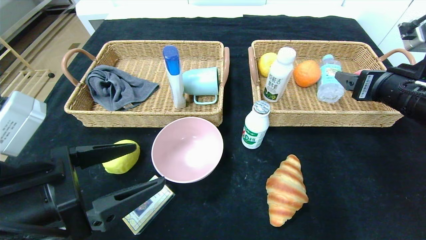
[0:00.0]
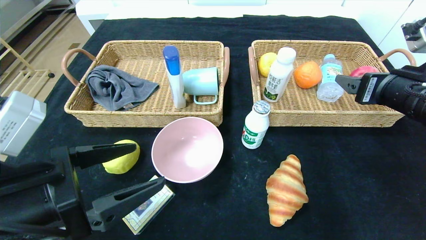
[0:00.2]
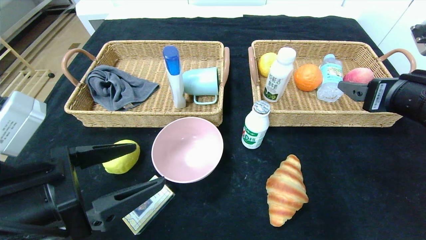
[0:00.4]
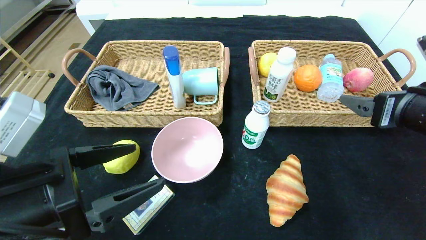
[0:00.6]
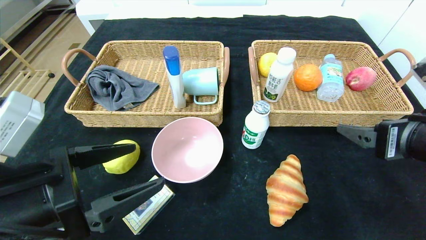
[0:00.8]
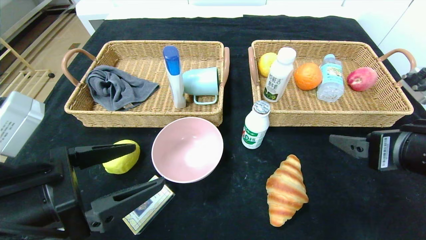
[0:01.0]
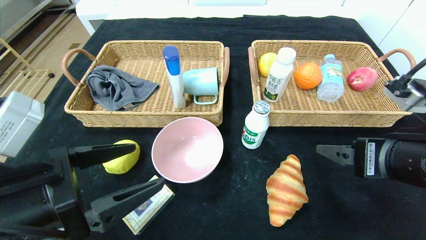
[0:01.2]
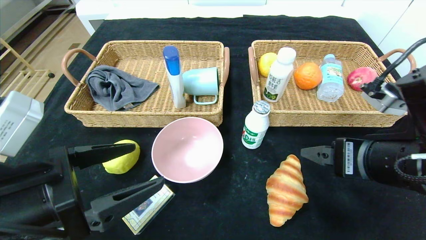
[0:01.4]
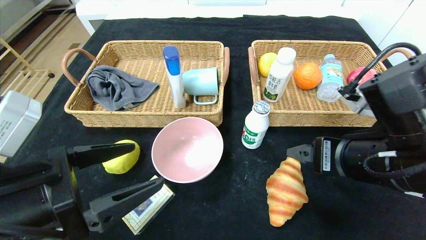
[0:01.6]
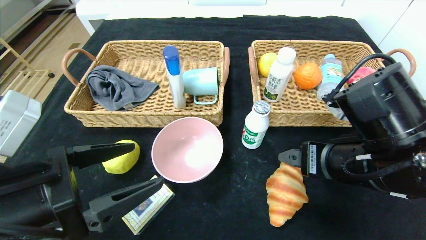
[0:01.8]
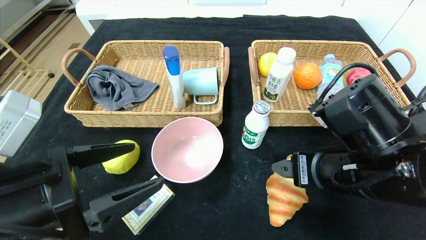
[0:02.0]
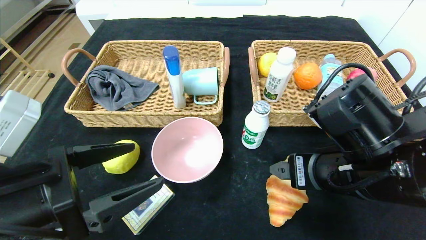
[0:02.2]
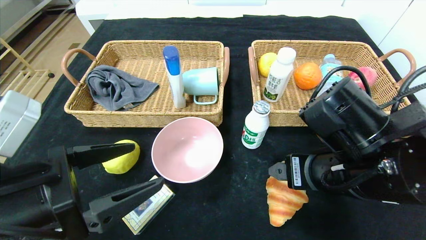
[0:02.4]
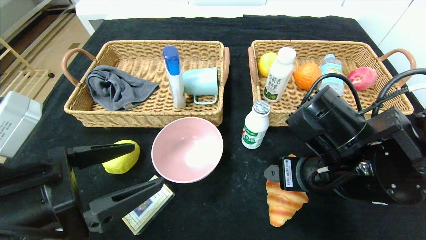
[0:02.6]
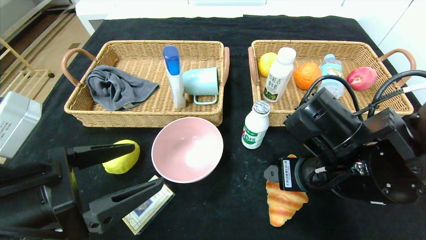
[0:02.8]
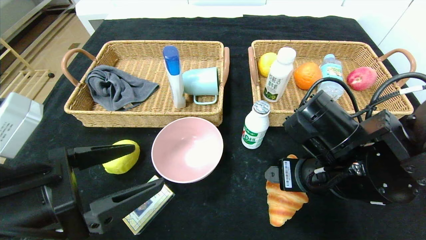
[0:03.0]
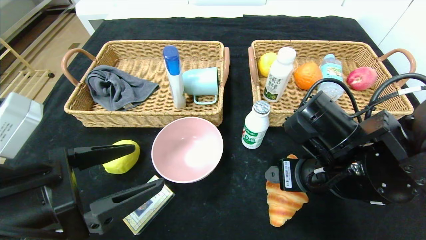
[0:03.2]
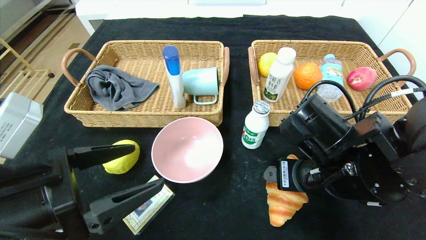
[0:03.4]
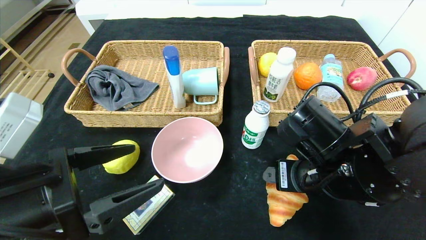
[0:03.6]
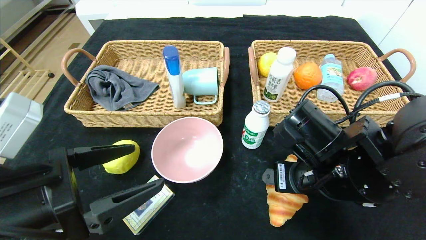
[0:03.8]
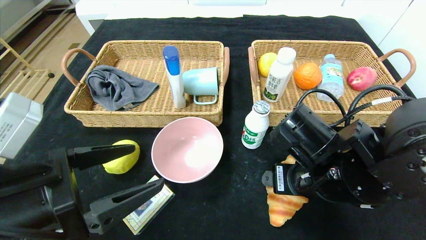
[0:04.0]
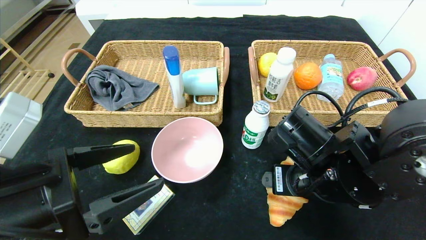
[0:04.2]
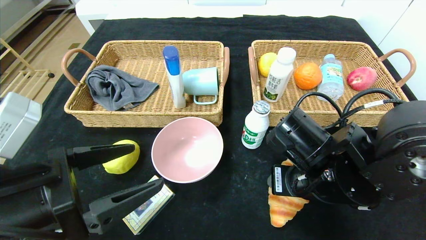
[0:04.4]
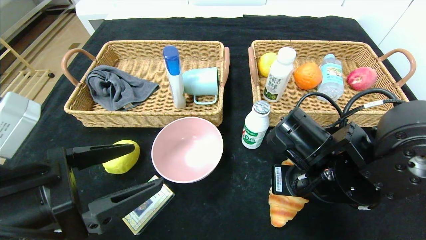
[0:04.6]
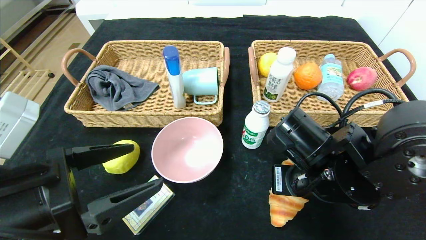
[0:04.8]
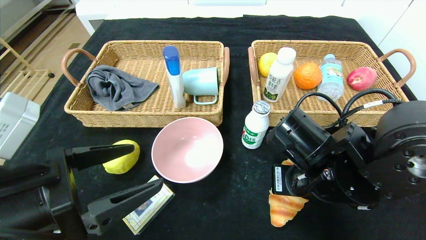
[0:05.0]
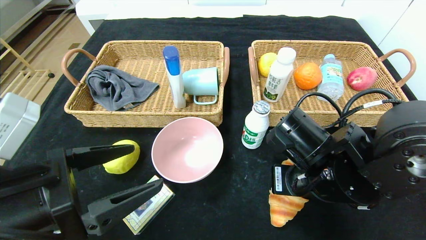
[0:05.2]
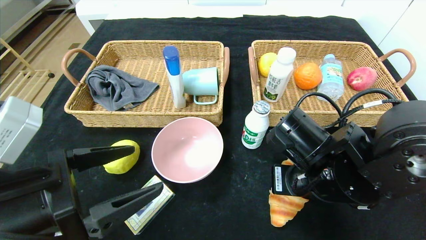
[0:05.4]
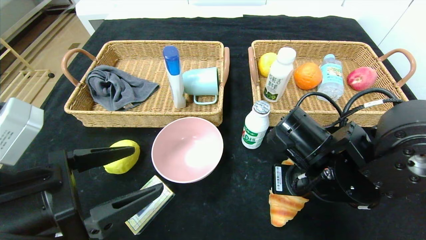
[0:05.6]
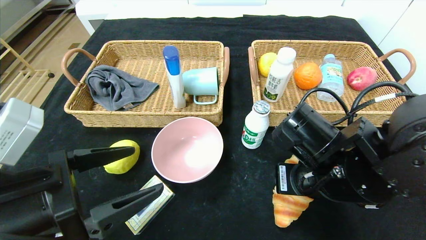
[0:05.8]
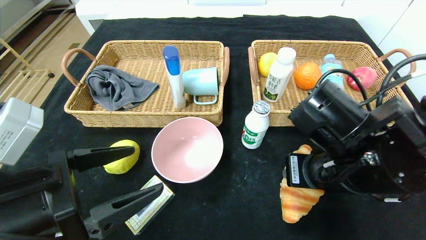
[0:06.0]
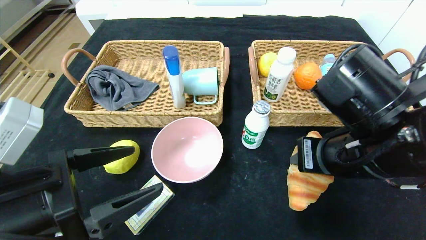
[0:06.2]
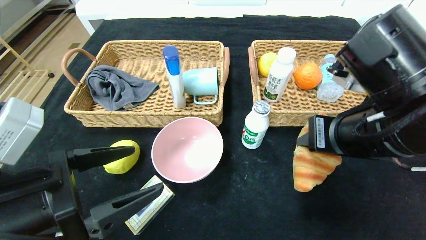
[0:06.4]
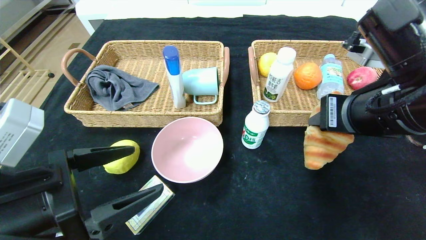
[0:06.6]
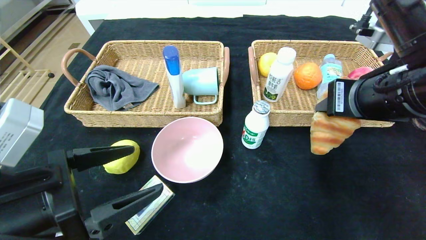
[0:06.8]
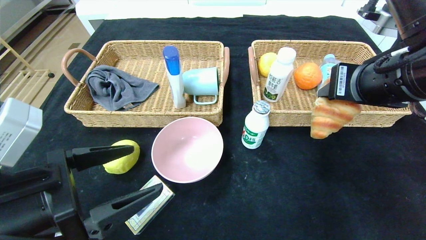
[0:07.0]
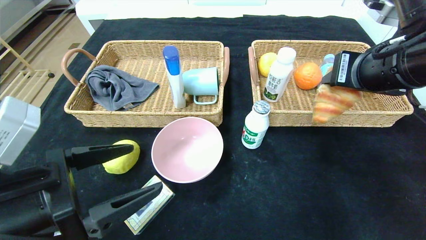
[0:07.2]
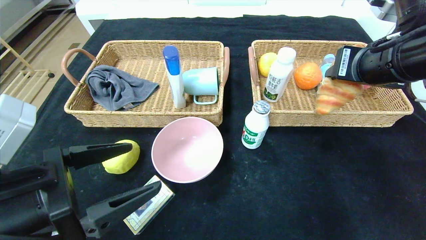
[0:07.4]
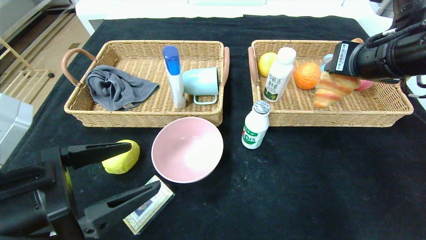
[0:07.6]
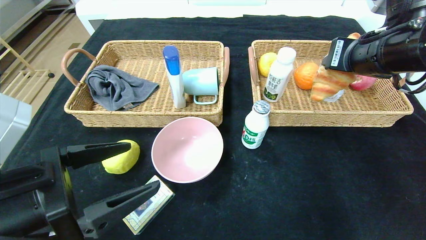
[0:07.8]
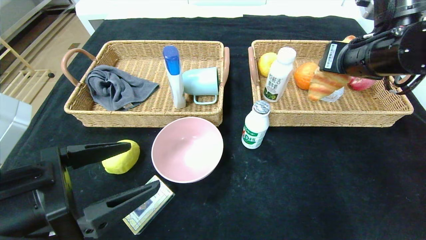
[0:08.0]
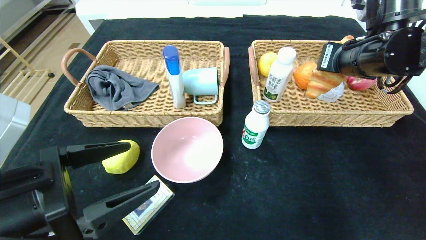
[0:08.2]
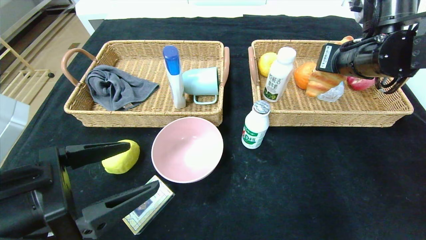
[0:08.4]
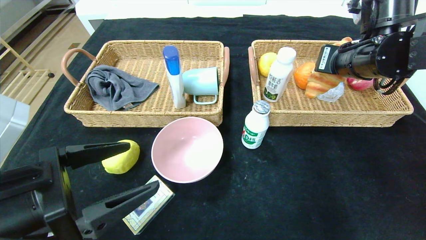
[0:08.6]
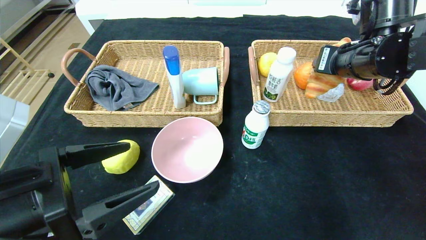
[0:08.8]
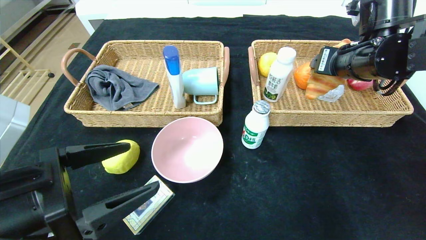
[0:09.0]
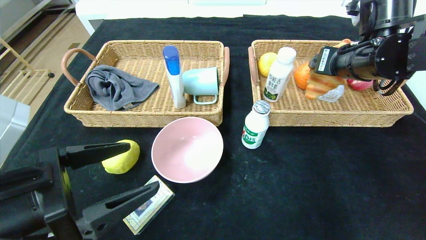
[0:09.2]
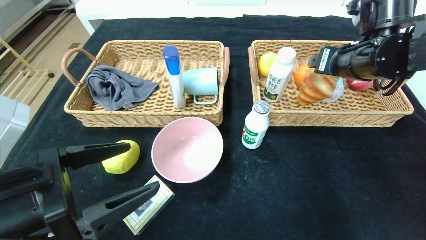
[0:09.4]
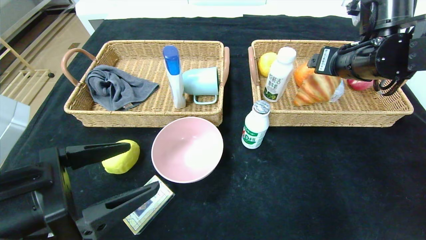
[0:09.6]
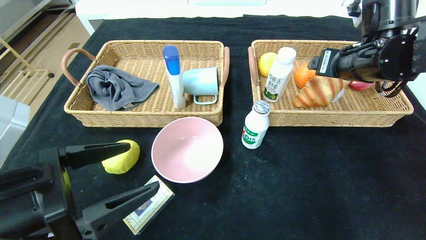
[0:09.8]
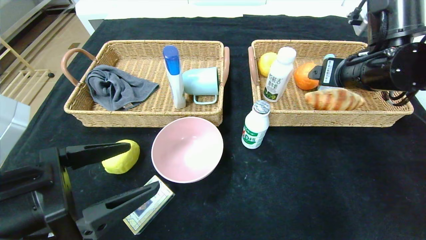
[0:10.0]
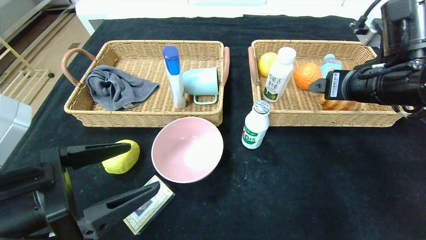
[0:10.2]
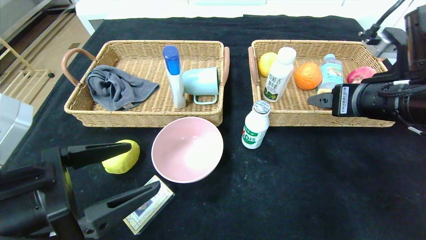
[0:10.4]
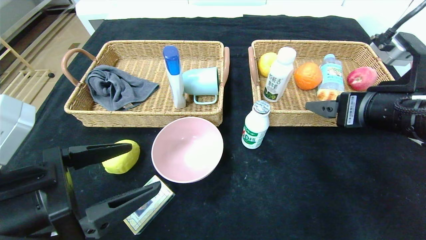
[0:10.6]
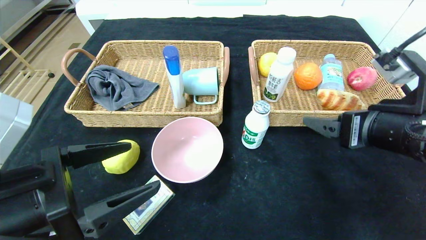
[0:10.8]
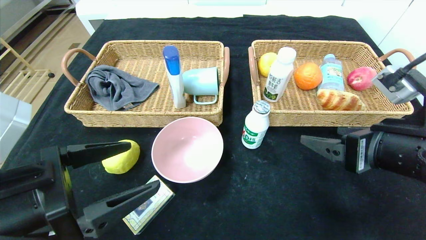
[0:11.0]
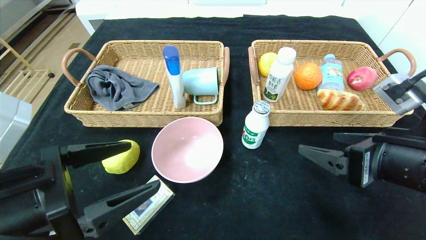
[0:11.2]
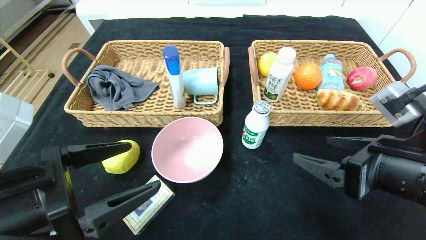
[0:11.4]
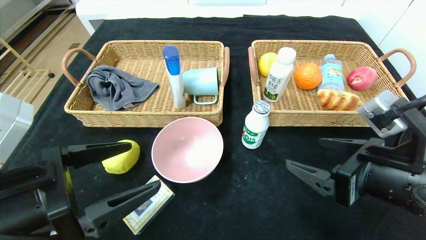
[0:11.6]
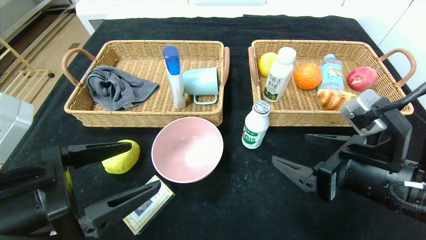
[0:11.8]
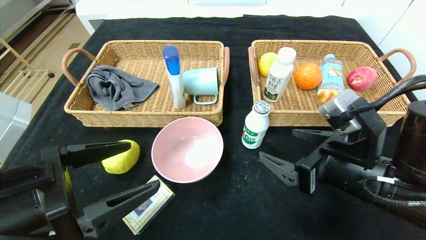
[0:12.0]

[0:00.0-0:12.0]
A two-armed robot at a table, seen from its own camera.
Step, 0:00.0 to 0:09.6: Grasp the croissant and put it in the right basket.
0:00.0 to 0:01.6: The right gripper heads to the left and backward, covering about 15 cm.
0:01.6 to 0:03.0: The right gripper changes place by some 5 cm.
0:03.0 to 0:04.4: The right gripper closes up.
0:04.4 to 0:06.0: The right gripper moves roughly 5 cm.
0:06.0 to 0:07.6: The right gripper moves upward, forward and to the right, about 15 cm.
0:07.6 to 0:09.0: The right gripper is displaced forward by some 5 cm, and opens.
0:09.0 to 0:10.4: The right gripper is displaced backward by roughly 10 cm, and opens its fingers.
0:10.4 to 0:12.0: The right gripper moves downward, approximately 10 cm.

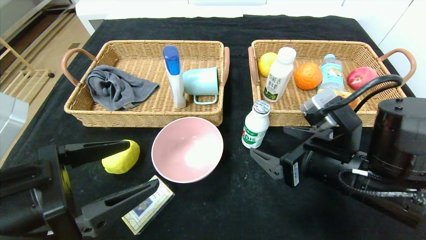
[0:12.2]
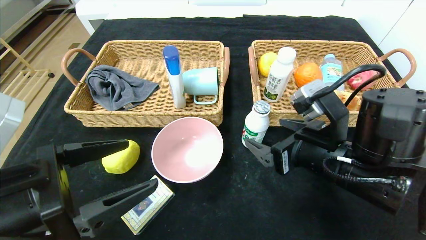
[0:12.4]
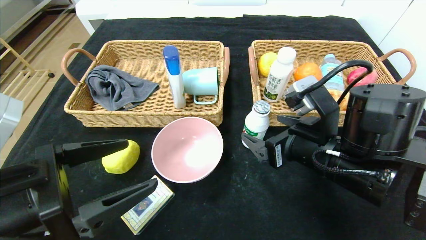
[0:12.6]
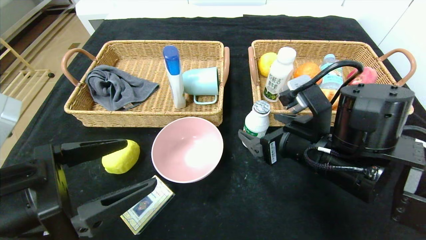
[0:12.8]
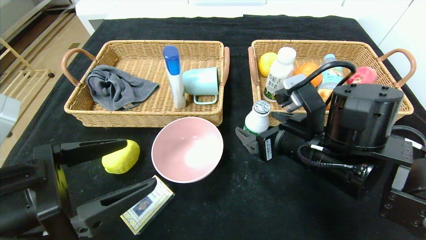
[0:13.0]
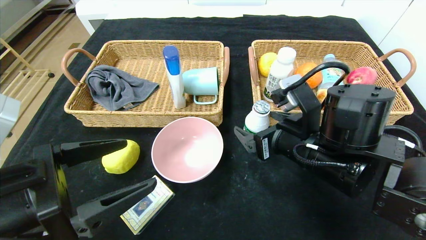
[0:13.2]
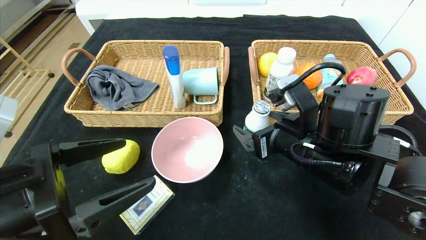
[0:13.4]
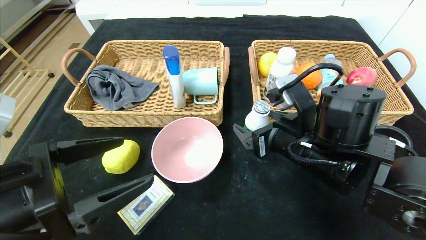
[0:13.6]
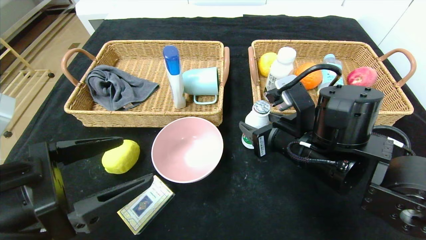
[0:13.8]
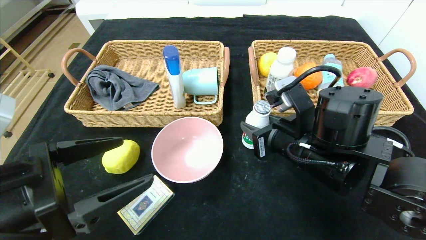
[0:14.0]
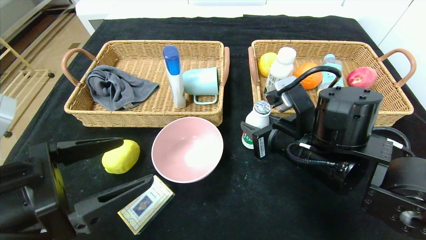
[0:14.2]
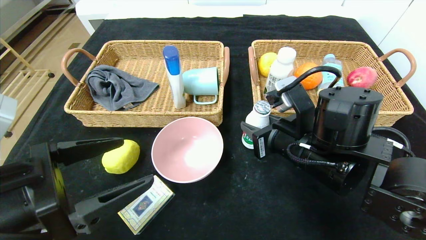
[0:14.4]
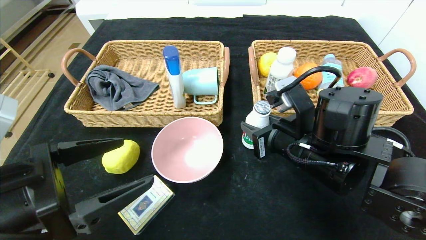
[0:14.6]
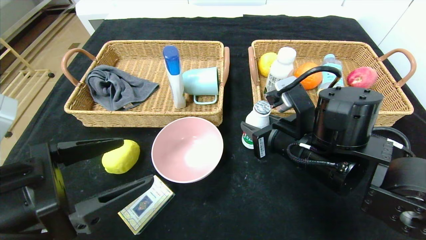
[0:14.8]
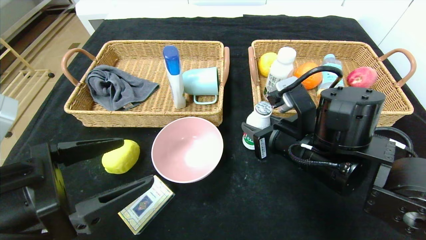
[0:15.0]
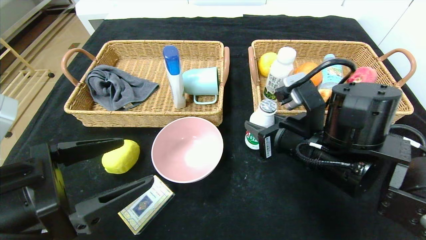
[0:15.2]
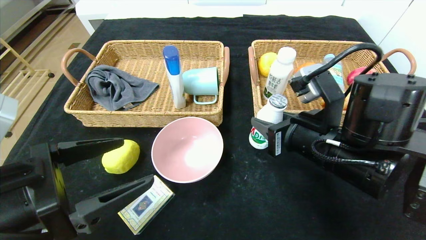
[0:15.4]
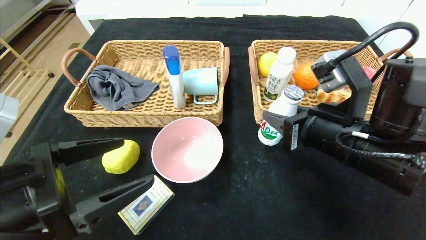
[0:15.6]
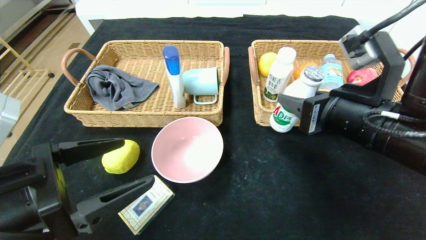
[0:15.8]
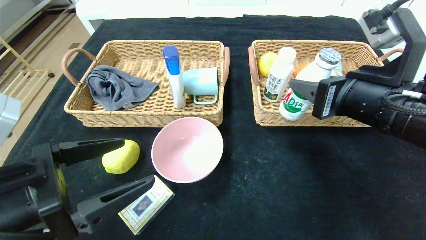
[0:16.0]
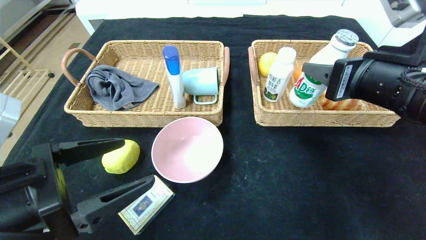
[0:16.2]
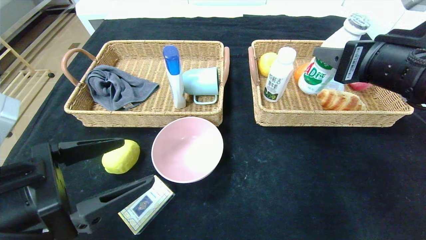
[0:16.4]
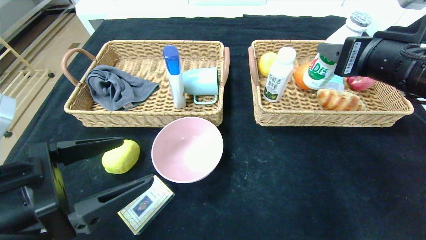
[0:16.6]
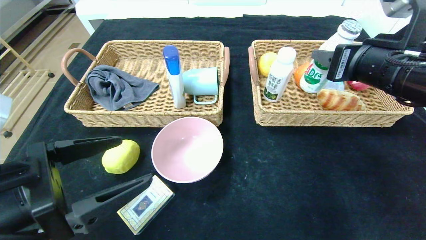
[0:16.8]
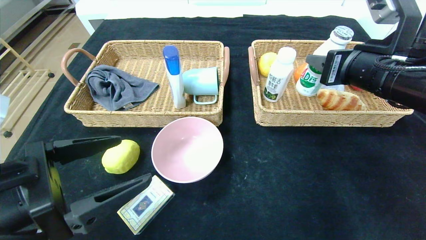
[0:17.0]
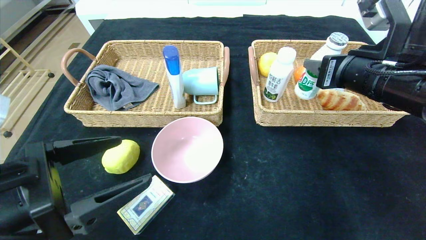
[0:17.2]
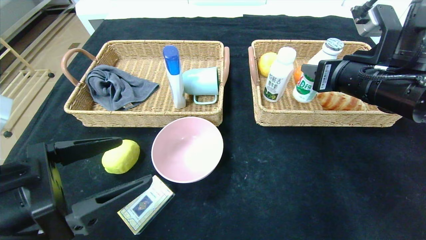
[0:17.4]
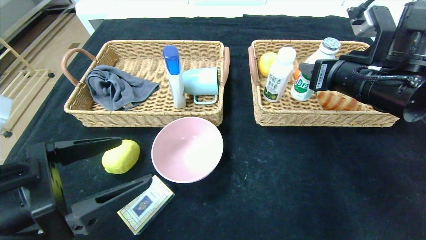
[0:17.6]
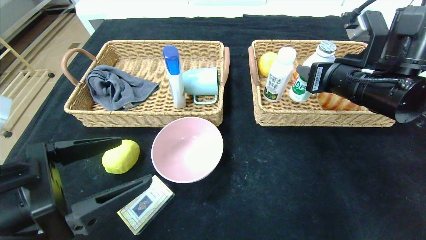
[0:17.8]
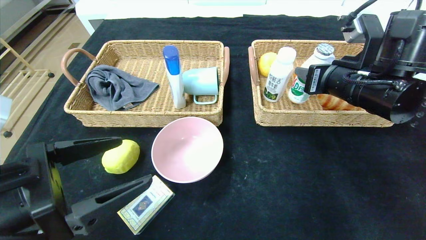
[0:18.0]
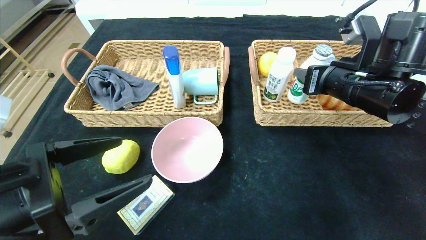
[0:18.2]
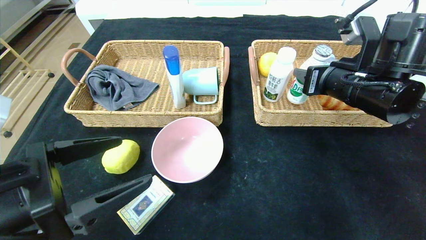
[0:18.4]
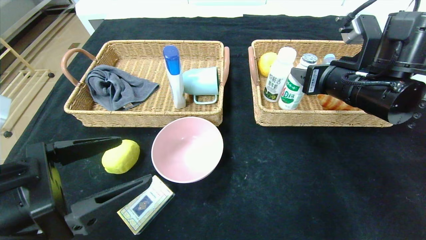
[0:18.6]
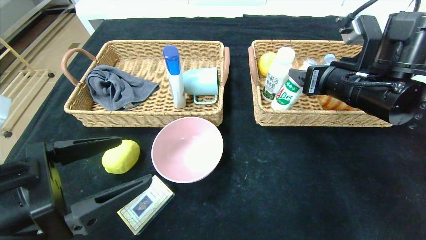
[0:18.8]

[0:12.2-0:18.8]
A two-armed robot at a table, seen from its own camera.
Step, 0:12.2 to 0:18.6: Grasp the ad milk and put it in the right basket.
0:12.2 to 0:13.8: The right gripper changes place by approximately 5 cm, and closes up.
0:13.8 to 0:15.4: The grippers stay close to where they were, moving slightly.
0:15.4 to 0:17.2: The right gripper shifts about 10 cm upward and to the right.
0:17.2 to 0:18.8: The right gripper opens.
